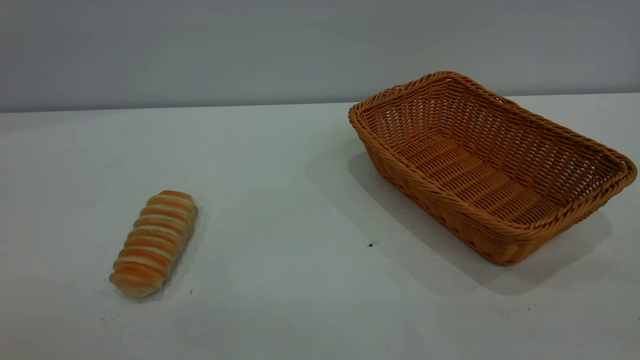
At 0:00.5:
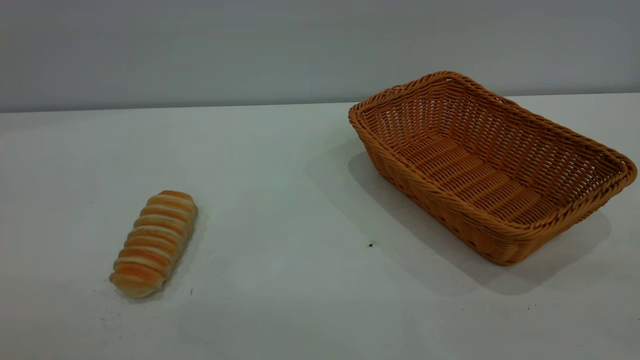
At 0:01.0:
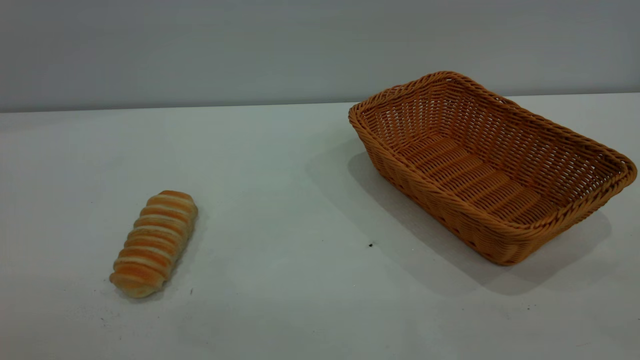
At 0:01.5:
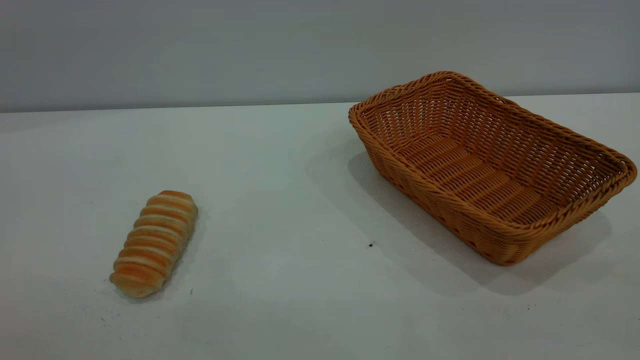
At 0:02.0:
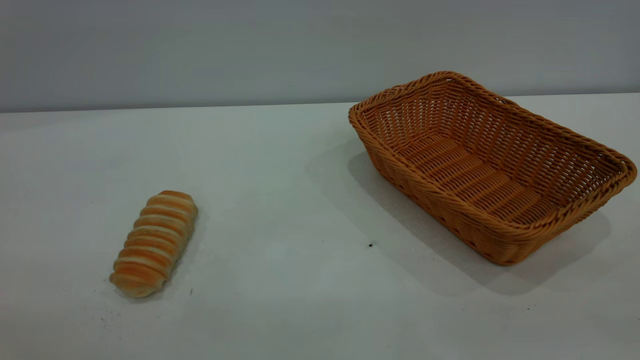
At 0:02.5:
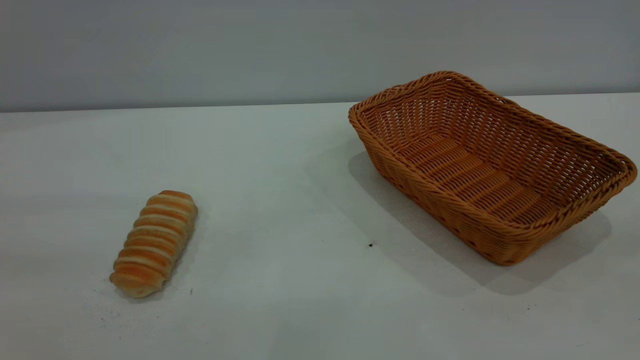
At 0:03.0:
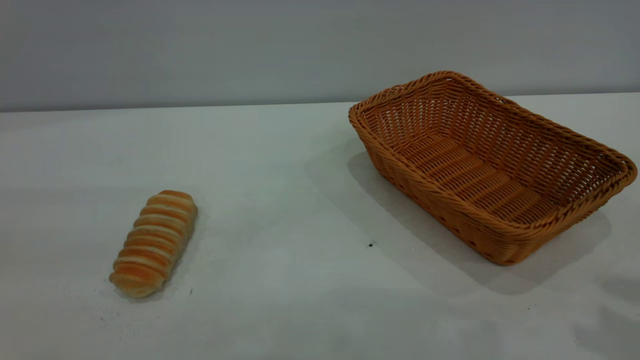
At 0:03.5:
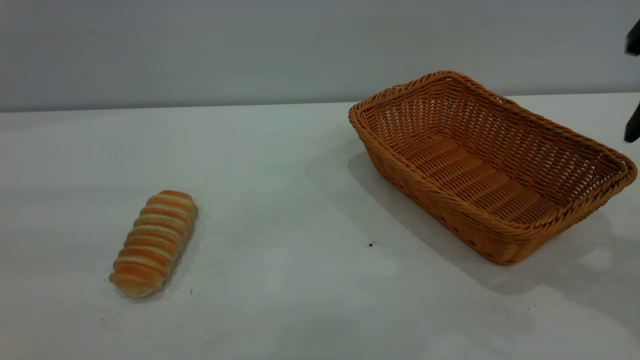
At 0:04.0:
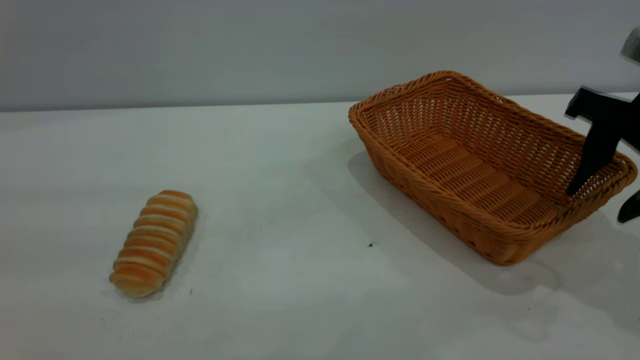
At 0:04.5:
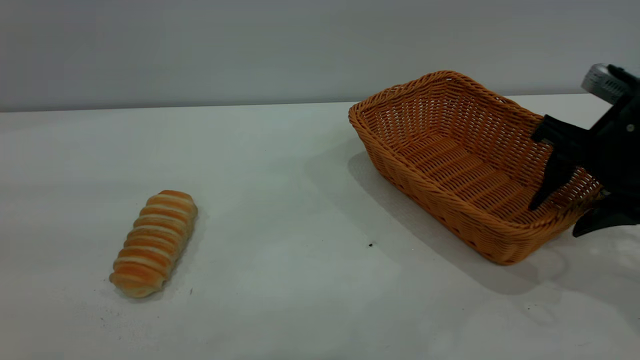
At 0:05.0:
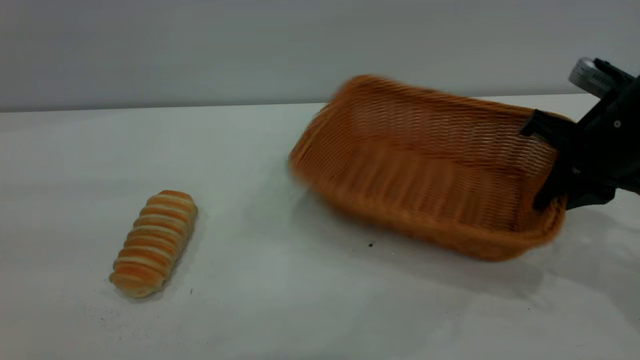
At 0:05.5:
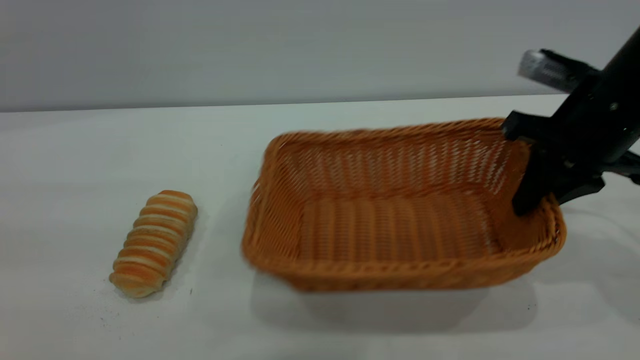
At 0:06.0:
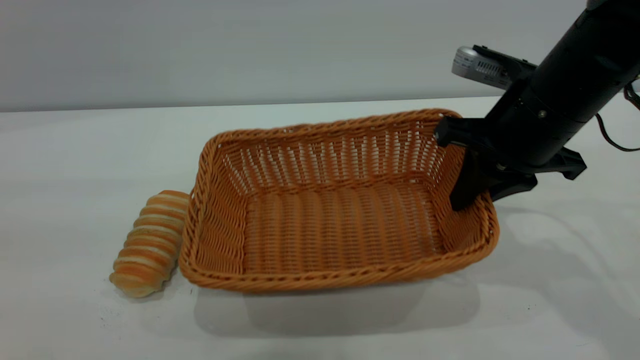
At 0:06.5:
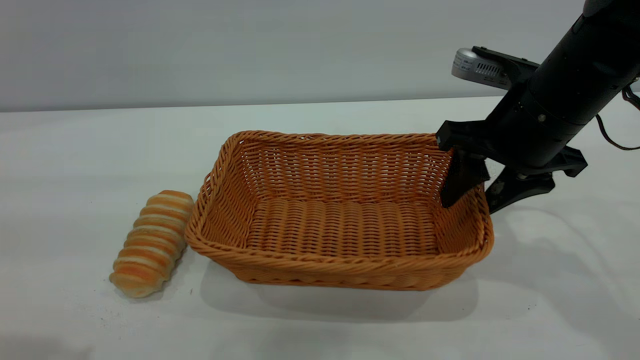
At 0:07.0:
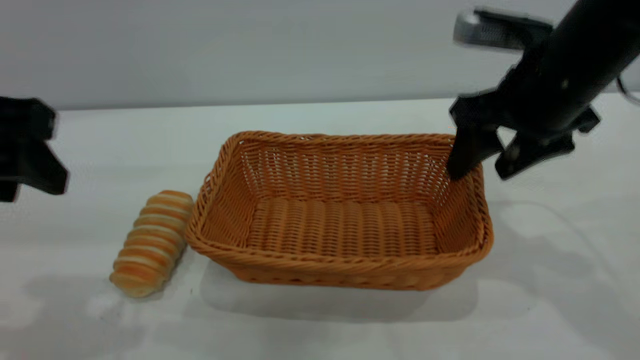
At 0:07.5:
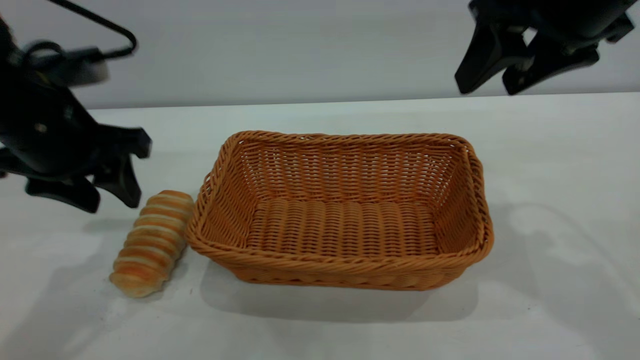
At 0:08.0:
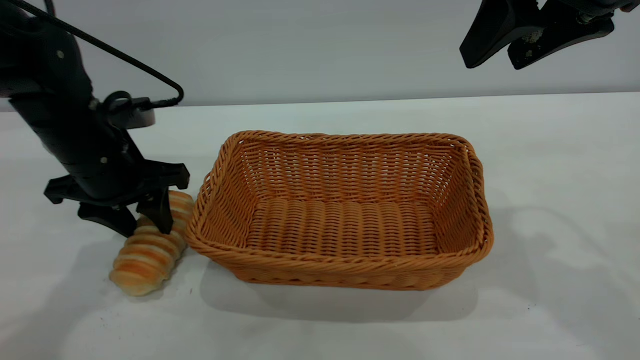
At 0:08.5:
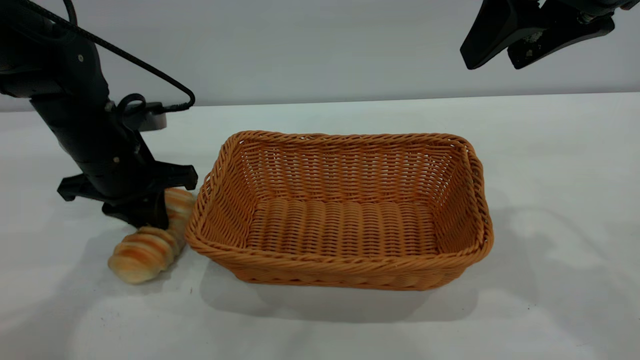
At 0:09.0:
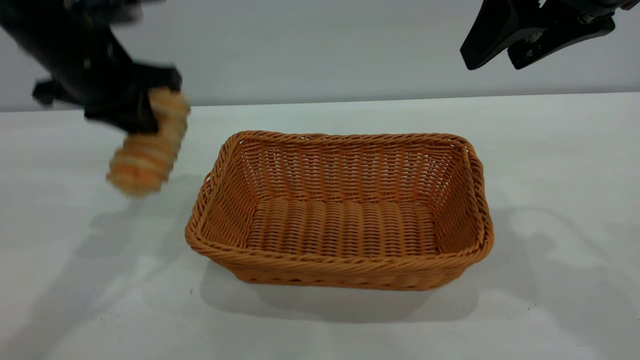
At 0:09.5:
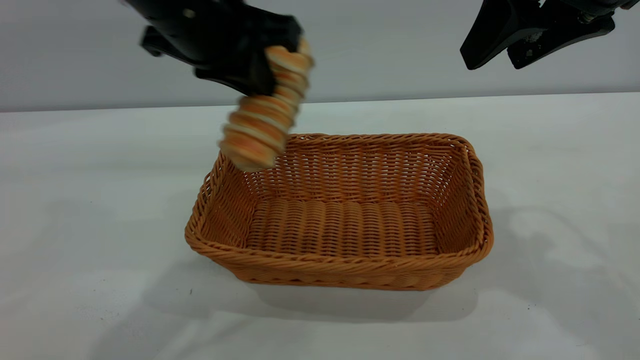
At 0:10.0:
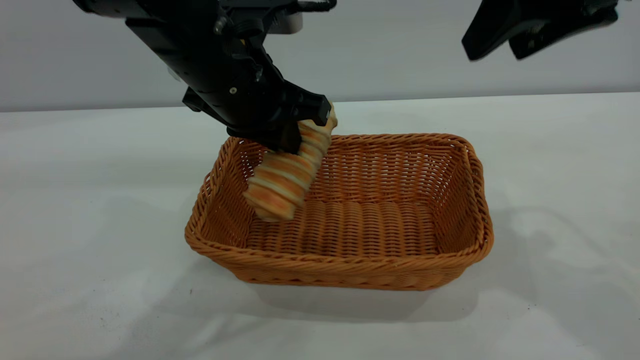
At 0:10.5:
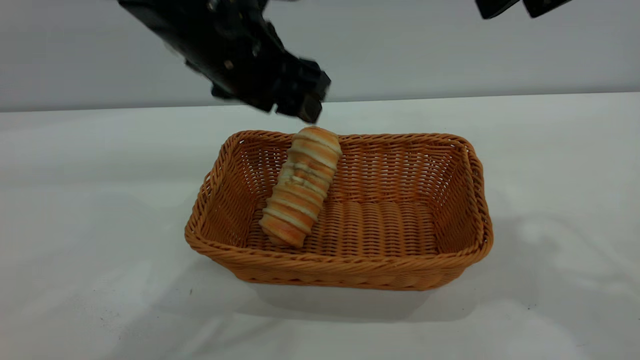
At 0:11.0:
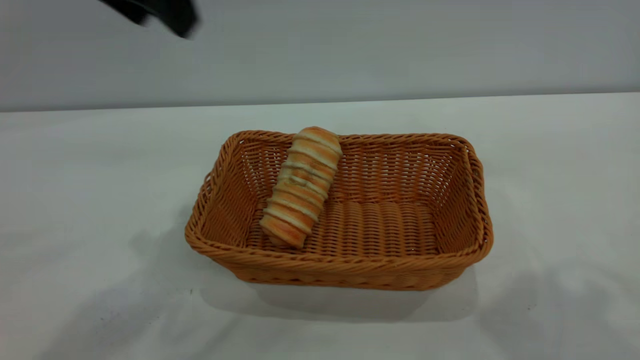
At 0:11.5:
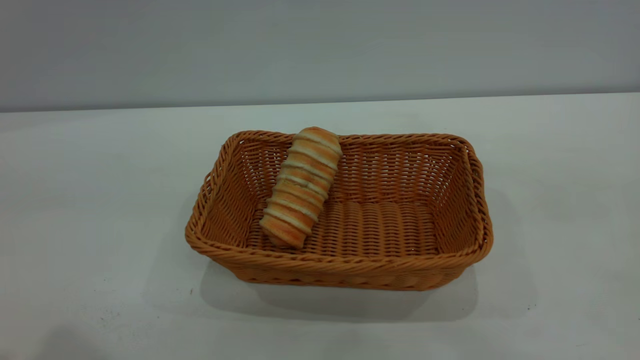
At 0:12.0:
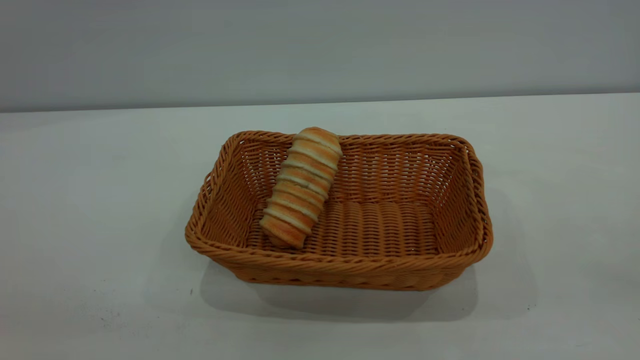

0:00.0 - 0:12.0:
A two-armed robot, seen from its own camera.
Task of the whole recording: One hand grasps the yellow basket and places it in the middle of the table, while the other hand picks up the long bread and puts it into the yellow basket.
Step, 0:00.0 - 0:07.0: Move the basket to the center of view.
Step, 0:09.0 - 0:10.5: place the bread into the basket.
0:02.0 - 0:04.0: The right gripper is displaced forward and downward by some 35 cm.
0:04.0 - 0:06.0: The right gripper is displaced to the left by about 10 cm, and closes its fingers.
0:06.0 - 0:08.0: The left gripper travels forward and downward by roughly 30 cm. The right gripper moves upward, roughly 15 cm, and opens its fingers.
0:08.0 - 0:10.0: The left gripper shifts approximately 15 cm to the right and upward, and closes.
0:10.0 - 0:12.0: The left gripper heads backward, to the left and upward, covering approximately 40 cm, and opens, while the right gripper travels backward by approximately 30 cm.
